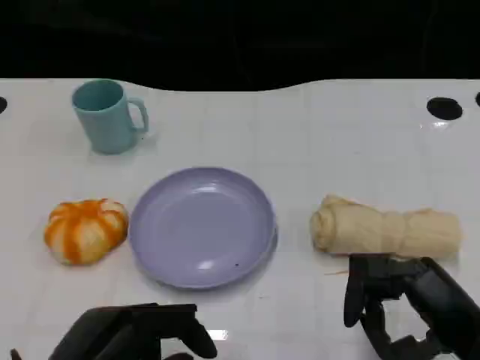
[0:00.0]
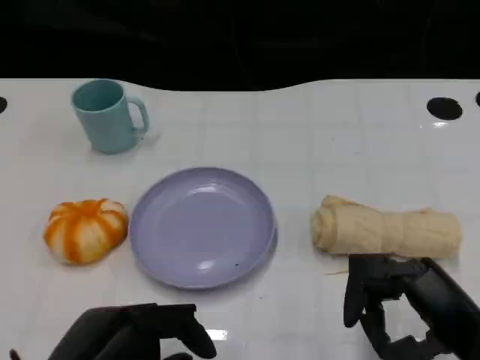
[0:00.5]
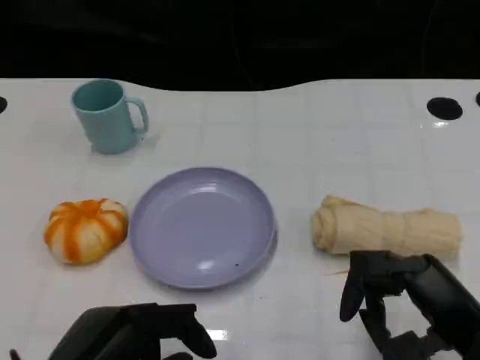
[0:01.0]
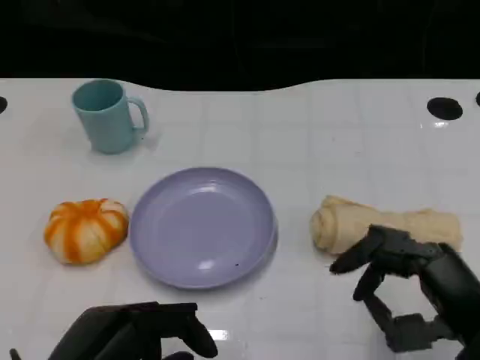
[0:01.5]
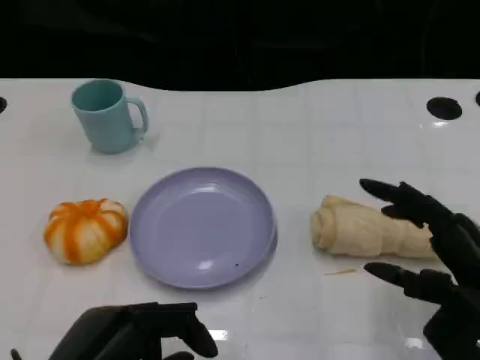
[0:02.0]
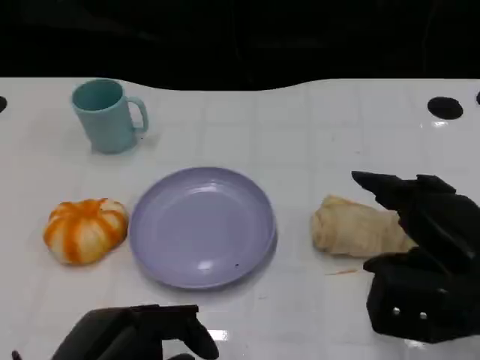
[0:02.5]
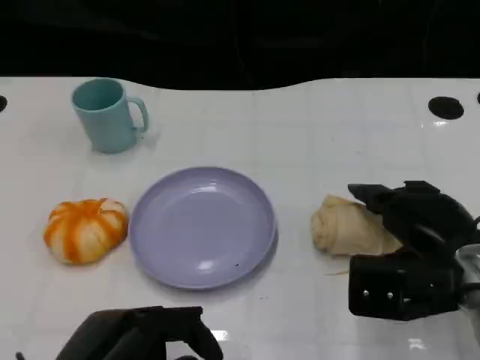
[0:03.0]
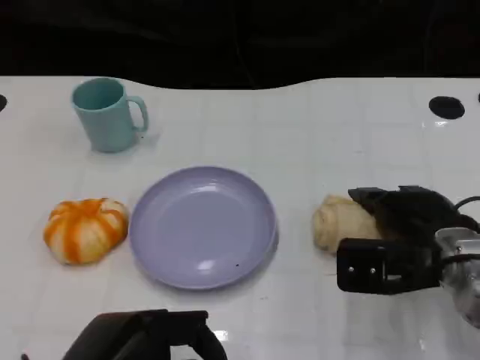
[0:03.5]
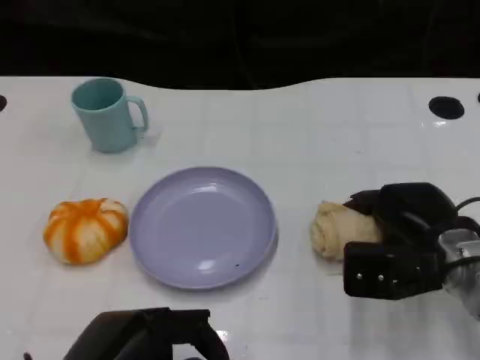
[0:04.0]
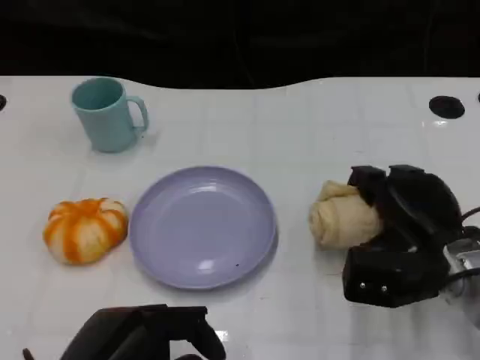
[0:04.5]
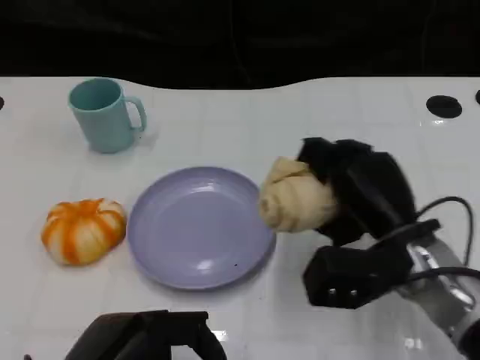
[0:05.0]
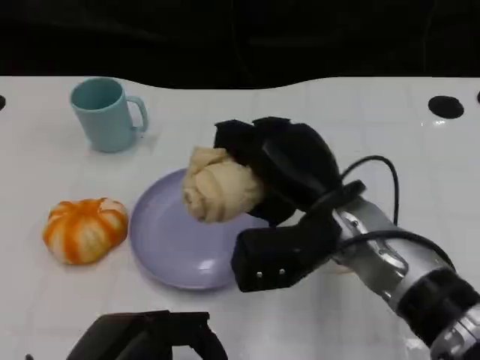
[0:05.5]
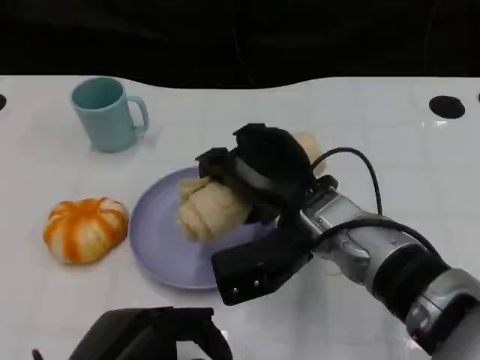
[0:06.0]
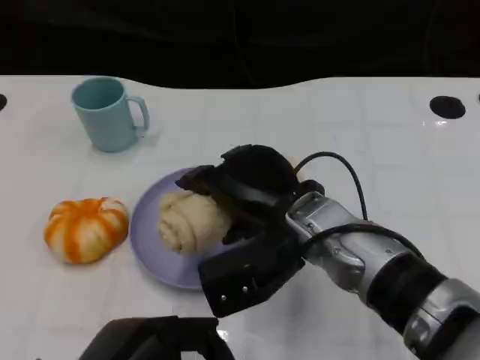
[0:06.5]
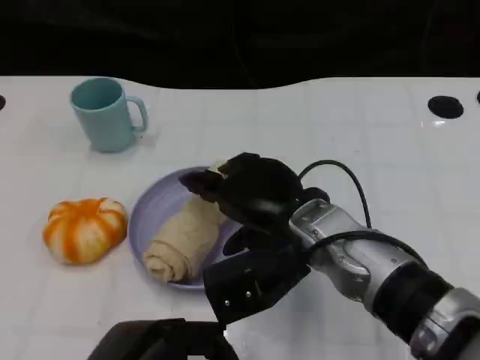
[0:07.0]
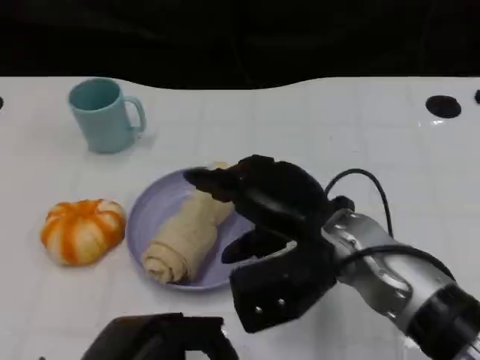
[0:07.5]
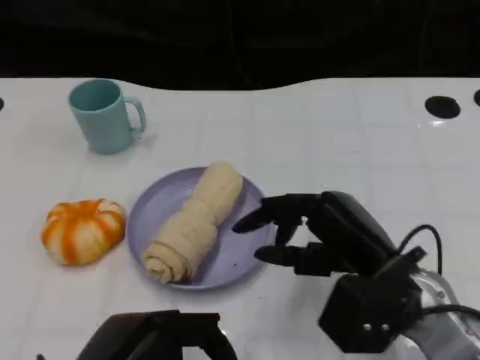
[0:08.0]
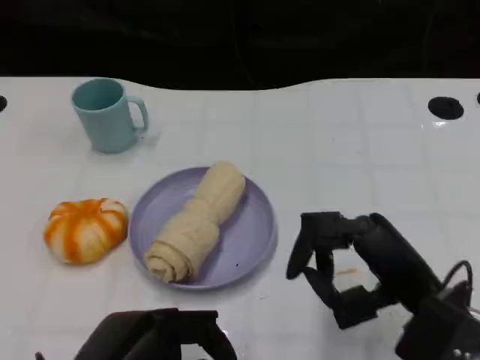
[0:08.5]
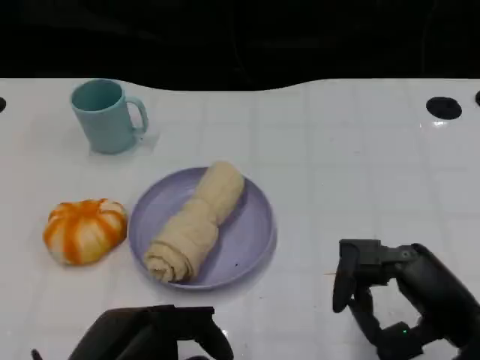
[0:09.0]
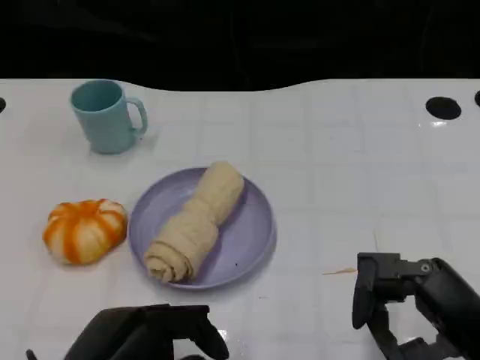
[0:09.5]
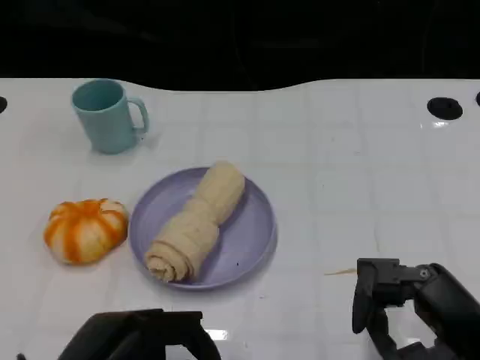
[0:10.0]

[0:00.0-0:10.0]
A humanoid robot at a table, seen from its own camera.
Task of the whole recording: Grasp the towel on the left side of the plate with the left hand and place it into the plate.
0:02.0 to 0:04.0: The right hand moves forward and downward, roughly 10 cm.
0:04.0 to 0:06.0: The right hand is displaced to the left by roughly 15 cm.
0:06.0 to 0:08.0: The right hand shifts about 10 cm to the right and backward.
0:08.0 to 0:10.0: The right hand heads to the right and backward, covering some 10 cm.

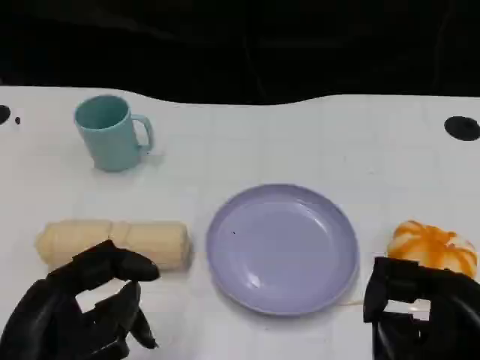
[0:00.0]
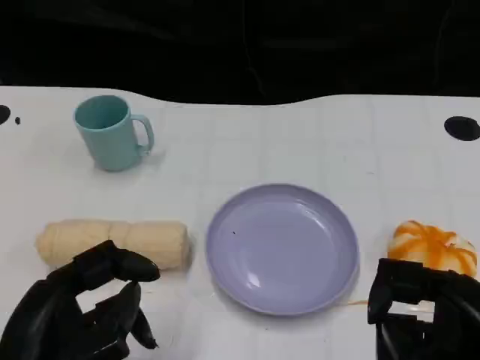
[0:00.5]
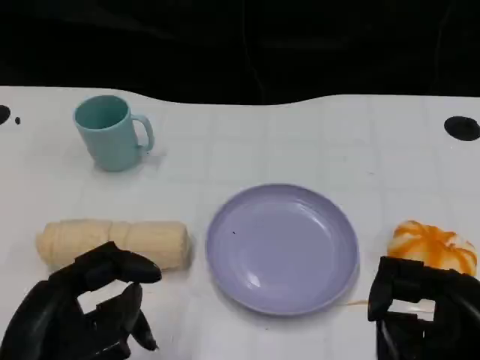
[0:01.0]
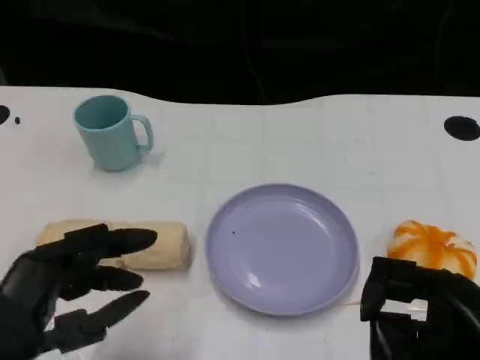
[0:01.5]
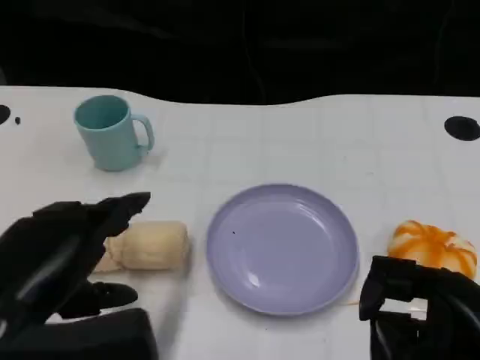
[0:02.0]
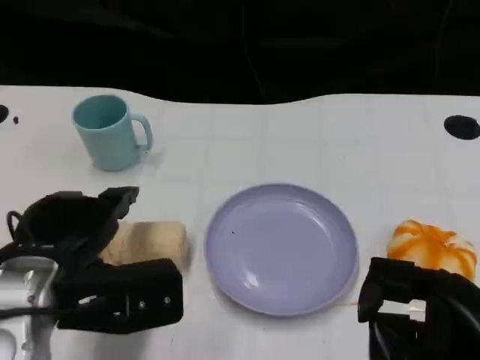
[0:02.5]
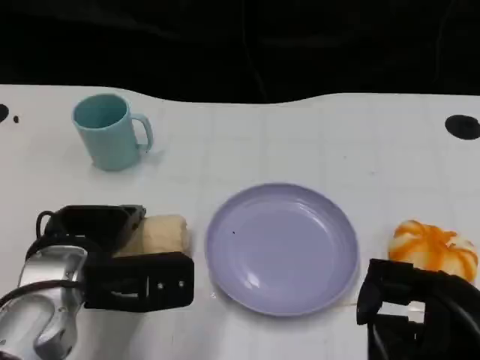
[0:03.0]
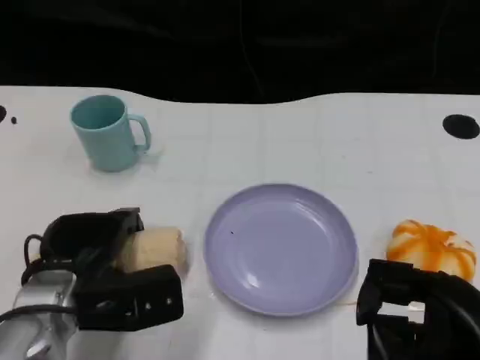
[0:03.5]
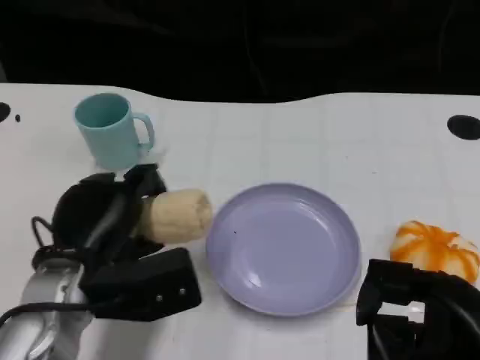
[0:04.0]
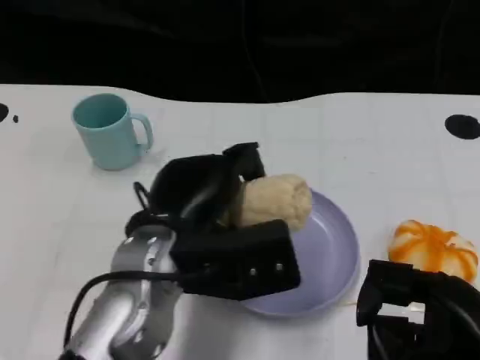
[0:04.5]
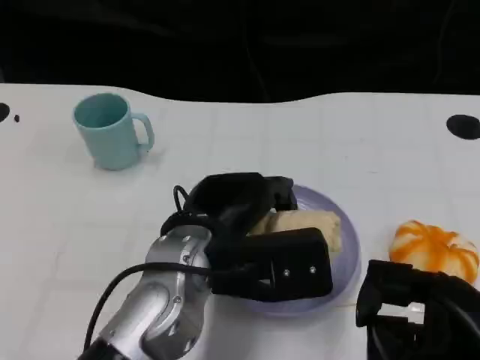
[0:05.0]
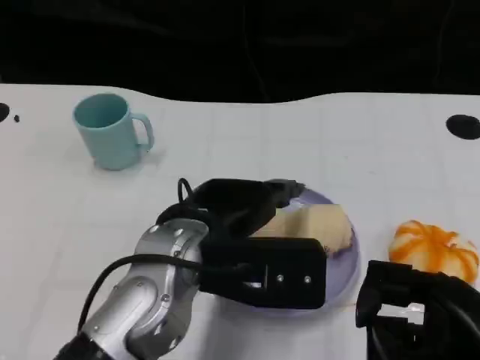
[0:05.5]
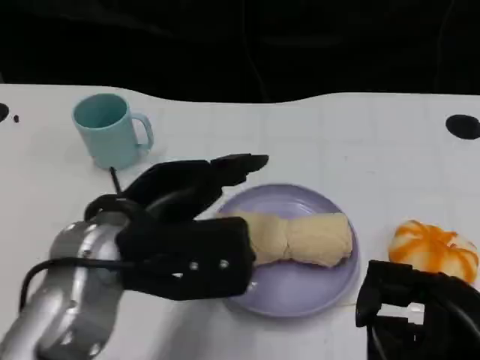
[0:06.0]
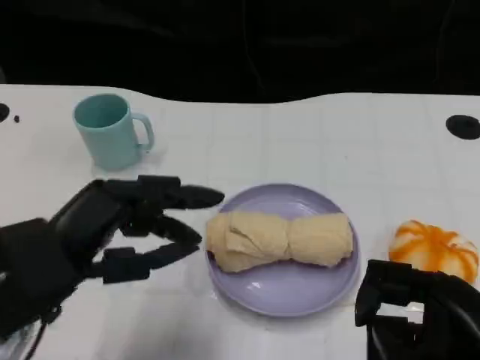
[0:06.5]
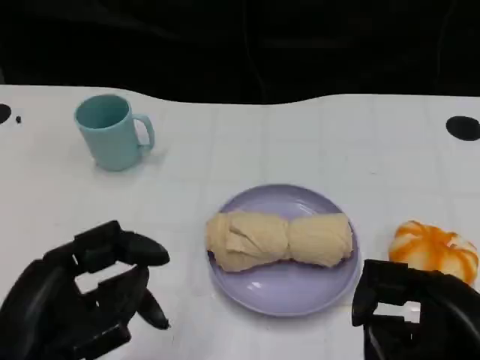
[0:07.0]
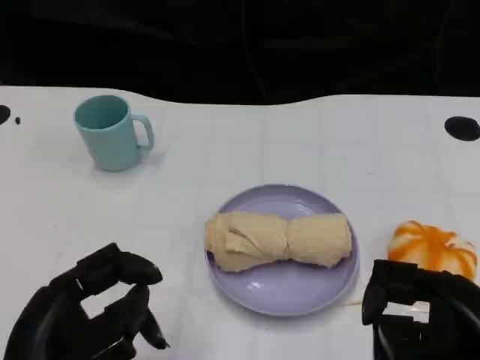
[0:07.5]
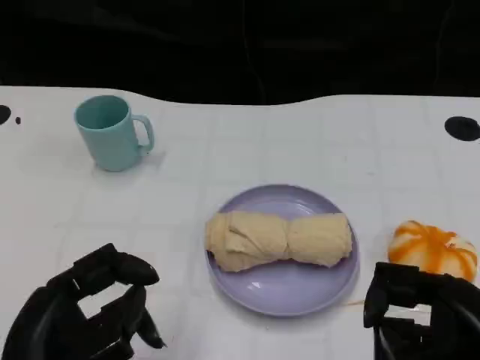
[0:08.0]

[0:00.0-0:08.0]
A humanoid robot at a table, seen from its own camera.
Task of the whole recording: Grasp the towel on the left side of the plate with the left hand and place it into the plate.
0:00.0 to 0:02.0: The left hand shifts by some 5 cm.
0:02.0 to 0:04.0: The left hand travels forward and downward by approximately 10 cm.
0:04.0 to 0:06.0: The left hand shifts approximately 10 cm upward, and reaches about 10 cm to the right, then returns.
0:06.0 to 0:08.0: The left hand travels backward, to the left and downward by some 15 cm.

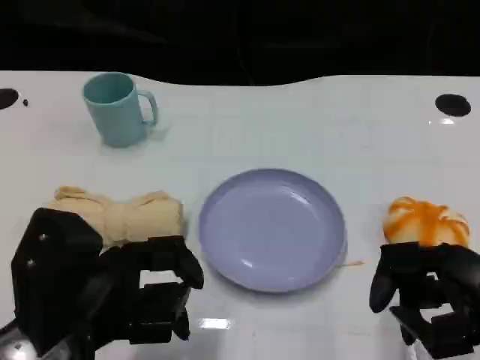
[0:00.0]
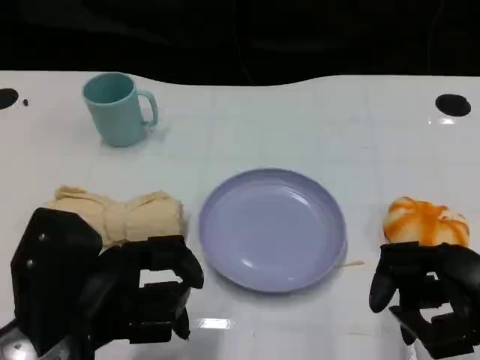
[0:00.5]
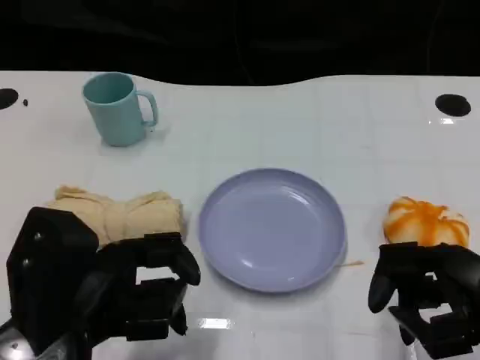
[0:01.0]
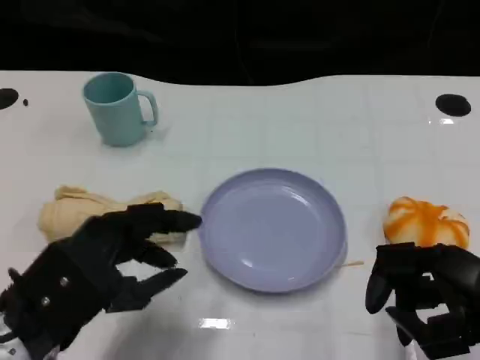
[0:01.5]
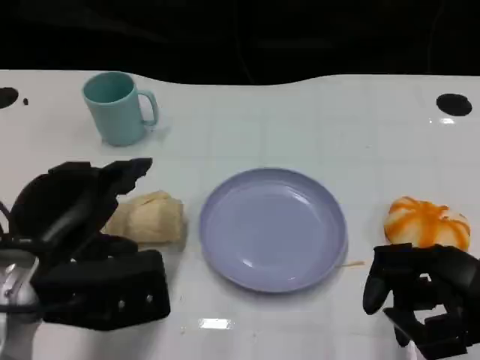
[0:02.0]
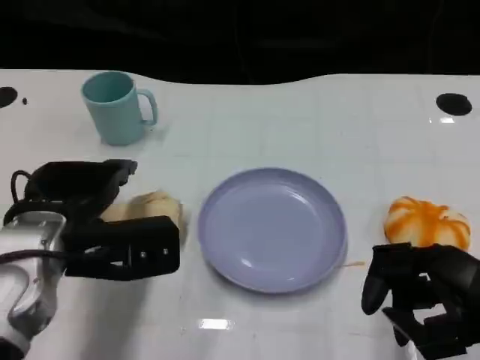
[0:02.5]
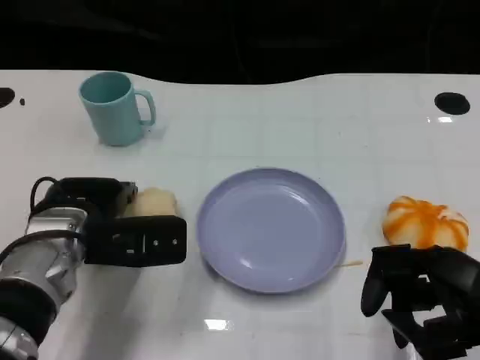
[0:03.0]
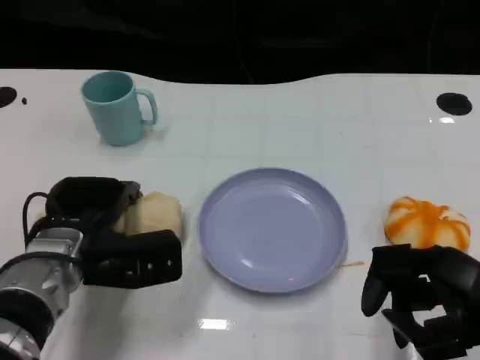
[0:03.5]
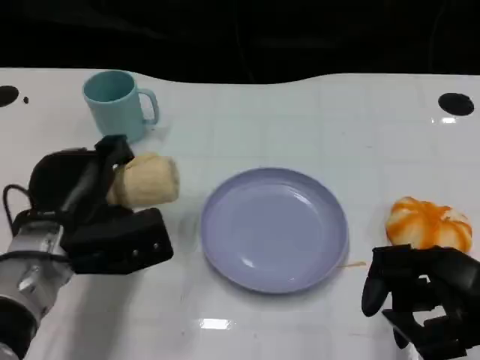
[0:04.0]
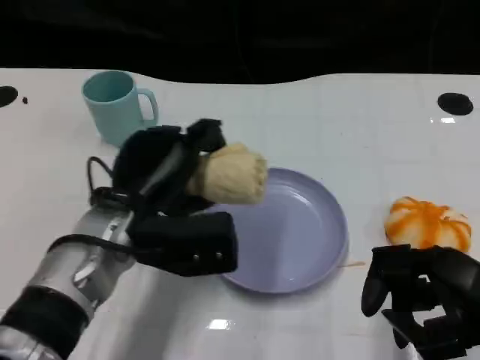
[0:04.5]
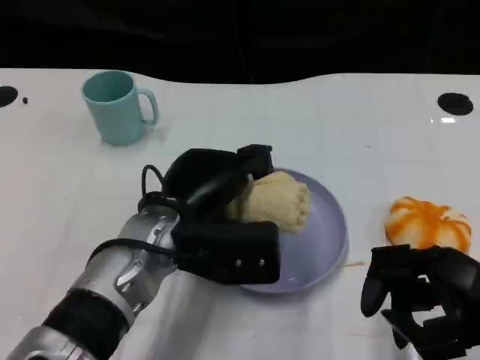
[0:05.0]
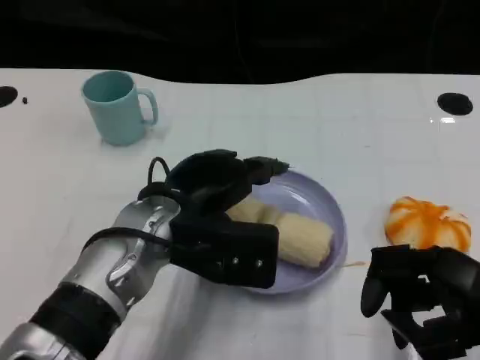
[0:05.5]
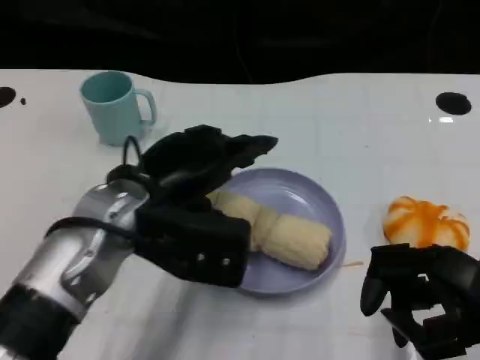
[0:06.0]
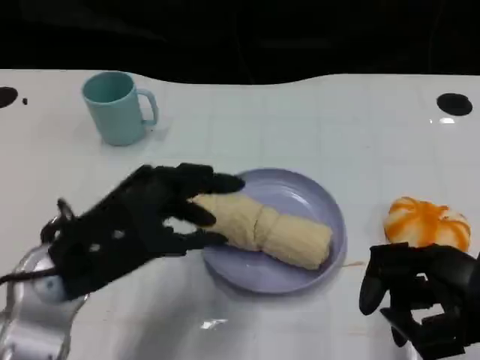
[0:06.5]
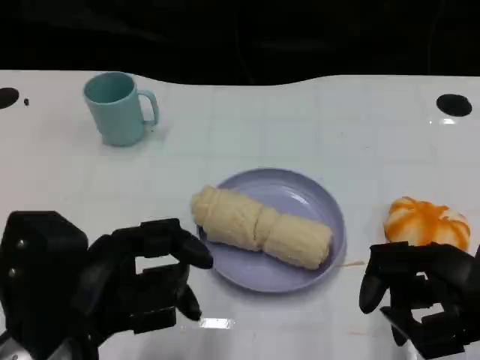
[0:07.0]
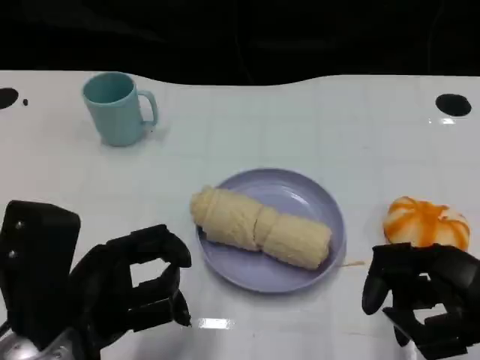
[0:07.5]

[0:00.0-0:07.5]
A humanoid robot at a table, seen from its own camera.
Task of the whole recording: Grasp the towel on the left side of the plate with the left hand and place it into the plate.
0:00.0 to 0:02.0: The left hand ends up some 5 cm from where it was.
0:02.0 to 0:04.0: The left hand moves forward and downward, approximately 10 cm.
0:04.0 to 0:05.5: The left hand shifts roughly 10 cm to the right.
0:05.5 to 0:07.5: The left hand moves backward and to the left, approximately 15 cm.
